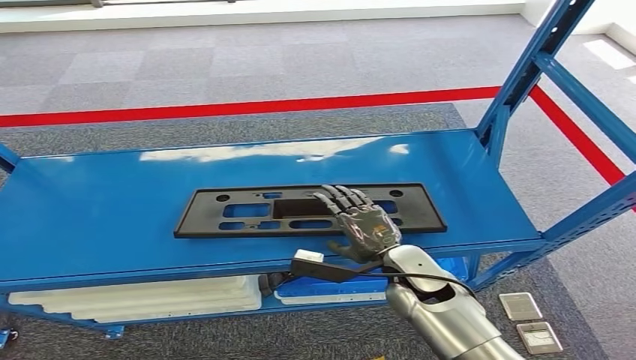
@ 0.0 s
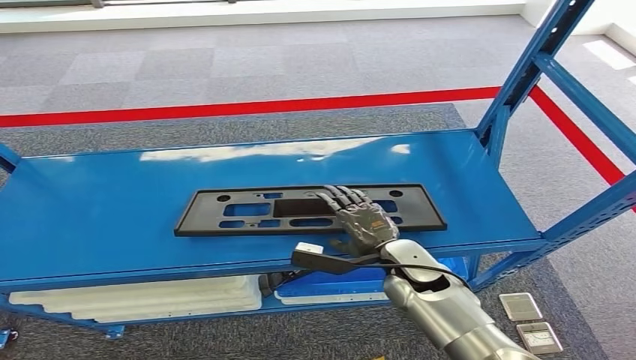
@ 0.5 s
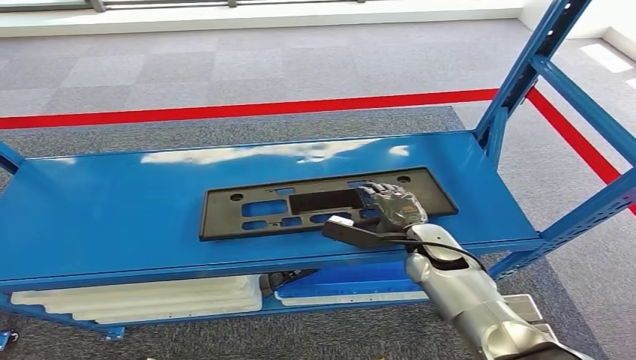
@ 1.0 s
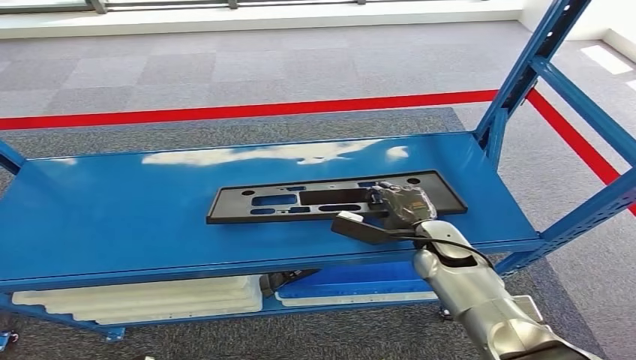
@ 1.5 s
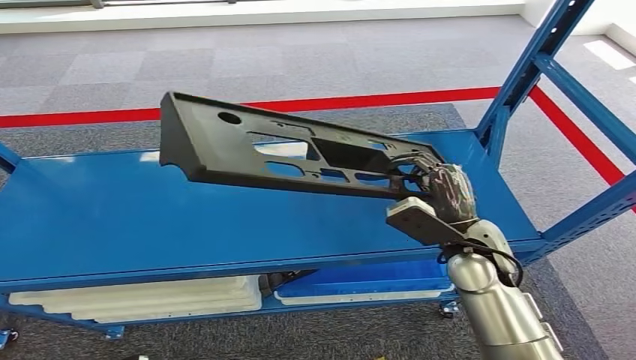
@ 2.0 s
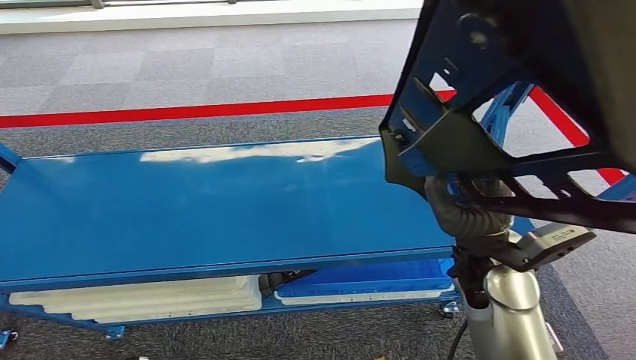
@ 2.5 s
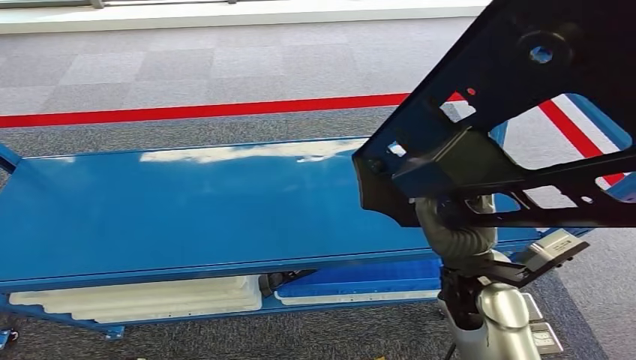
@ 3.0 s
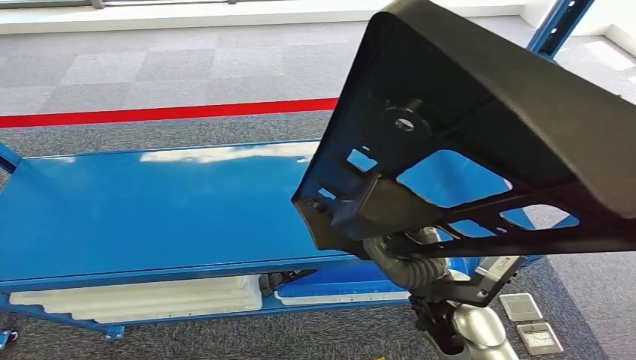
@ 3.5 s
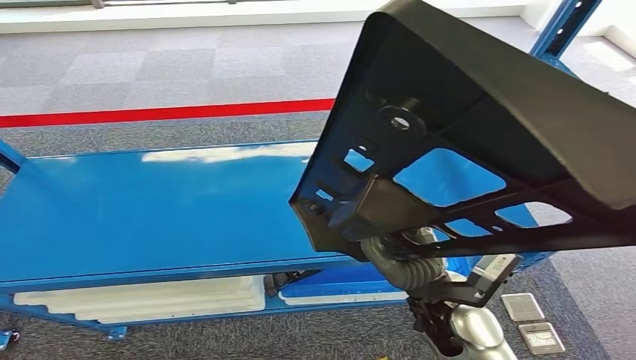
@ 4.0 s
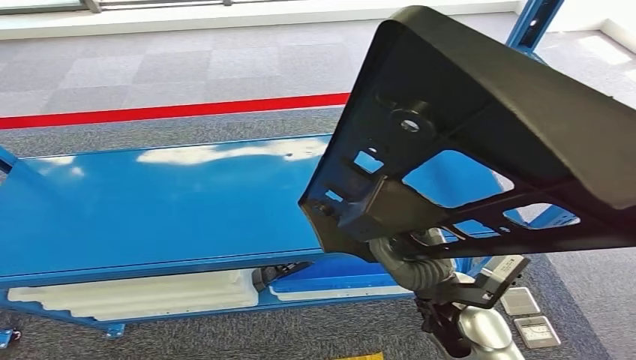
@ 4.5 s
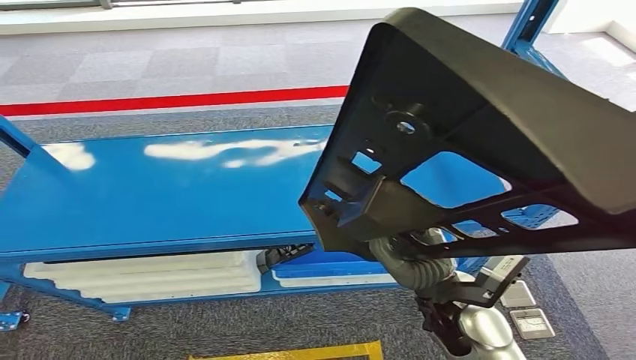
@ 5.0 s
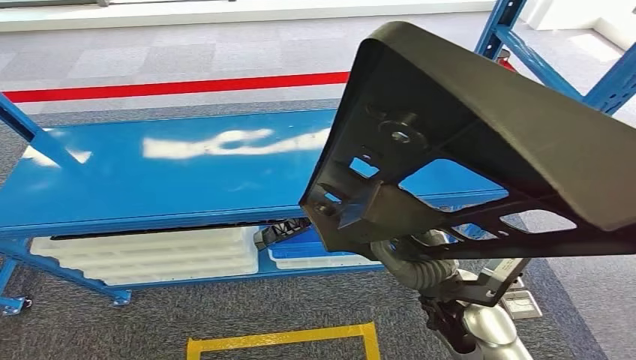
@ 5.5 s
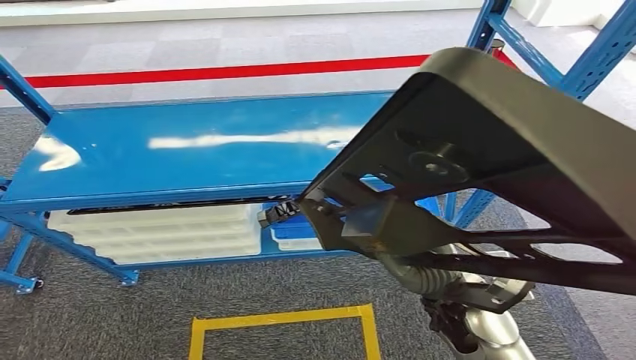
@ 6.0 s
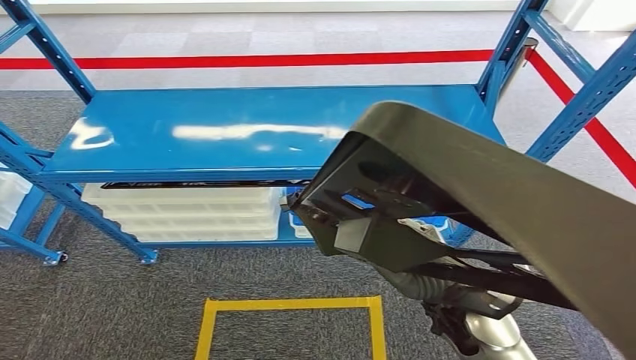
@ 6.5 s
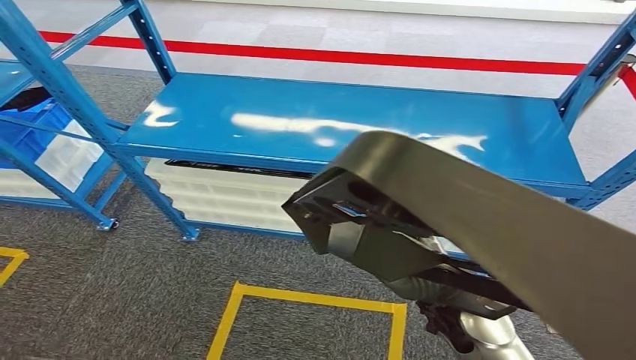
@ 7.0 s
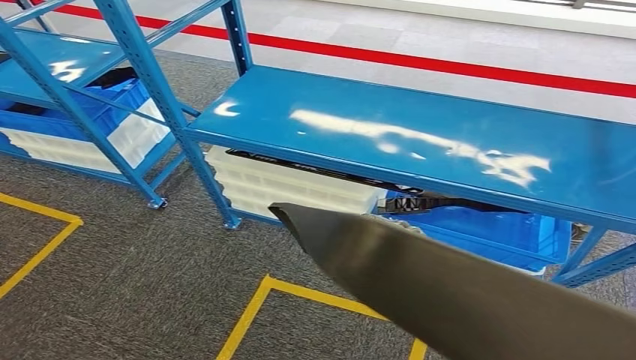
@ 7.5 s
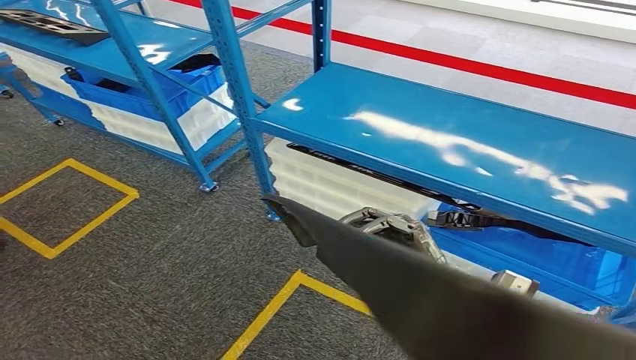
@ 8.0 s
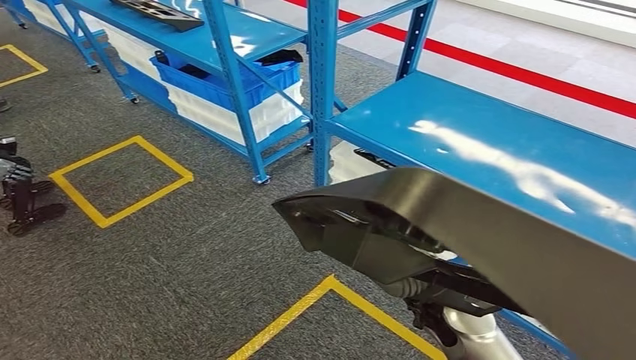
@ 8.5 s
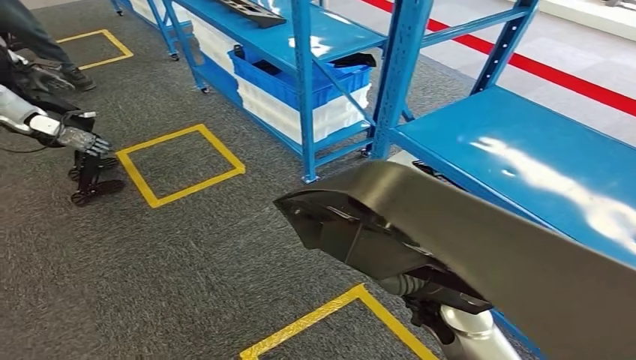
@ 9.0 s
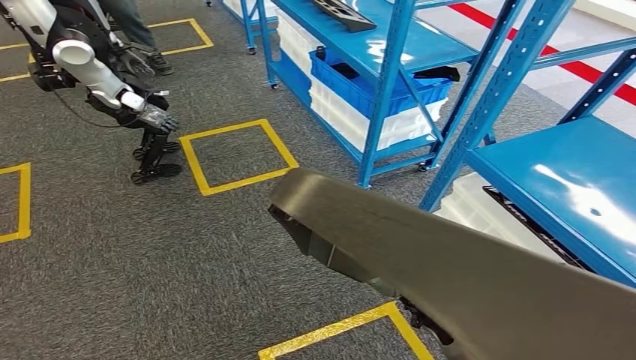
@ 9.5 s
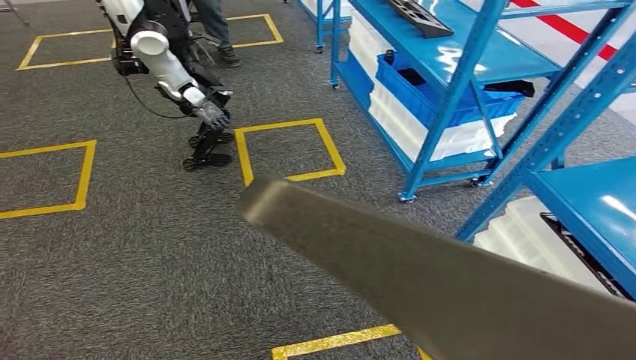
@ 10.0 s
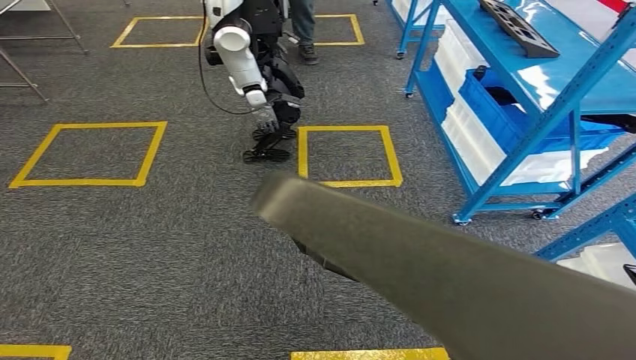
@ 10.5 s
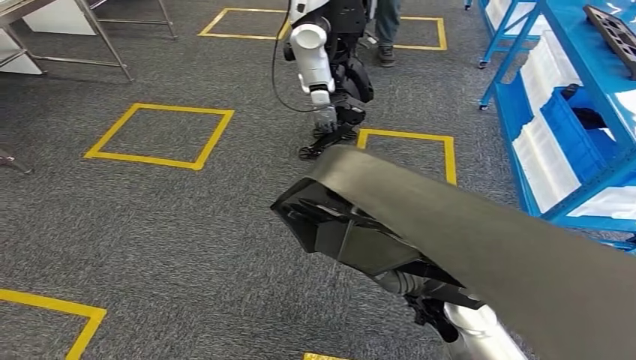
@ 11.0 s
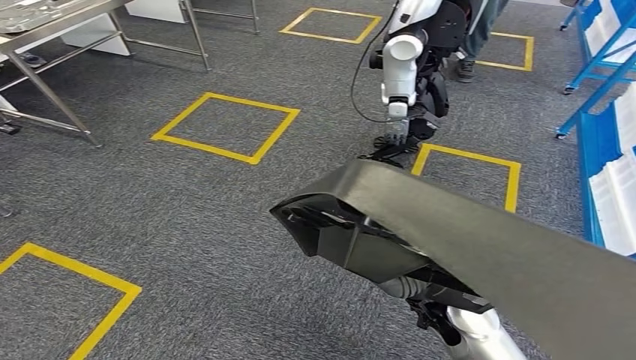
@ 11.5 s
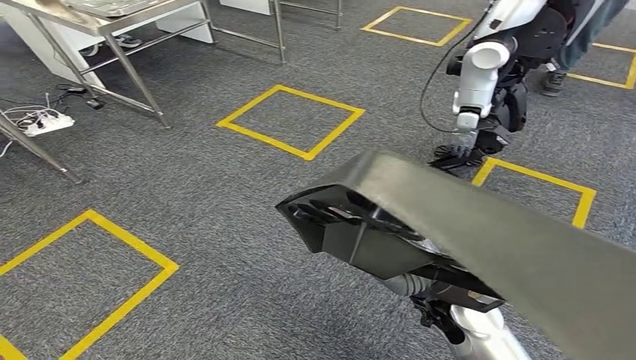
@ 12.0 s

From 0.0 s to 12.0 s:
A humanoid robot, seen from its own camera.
Step, from 0.0 s to 2.5 s: Take small components from the rack.
From 0.0 s to 2.0 s: The right hand heads upward and to the right, covering about 10 cm.

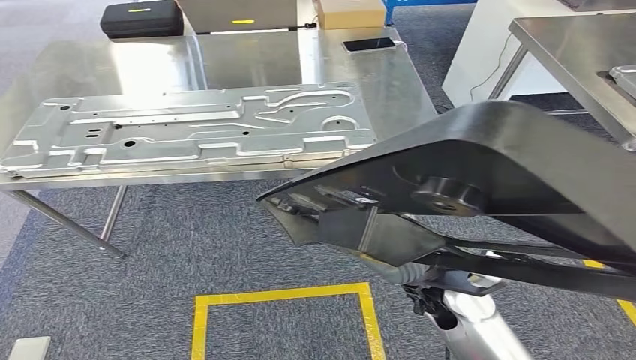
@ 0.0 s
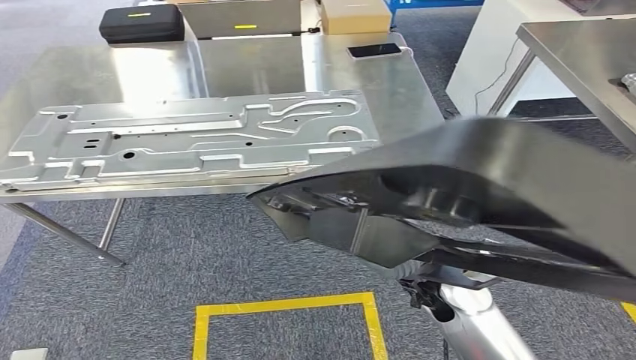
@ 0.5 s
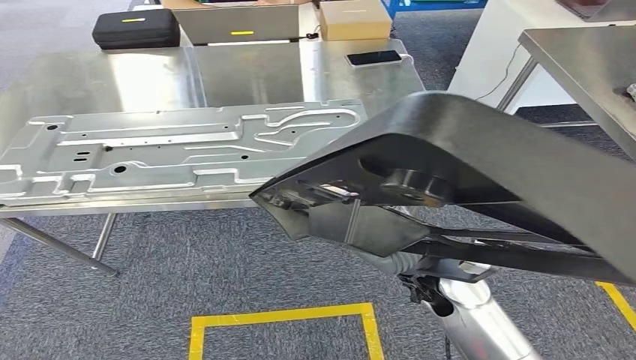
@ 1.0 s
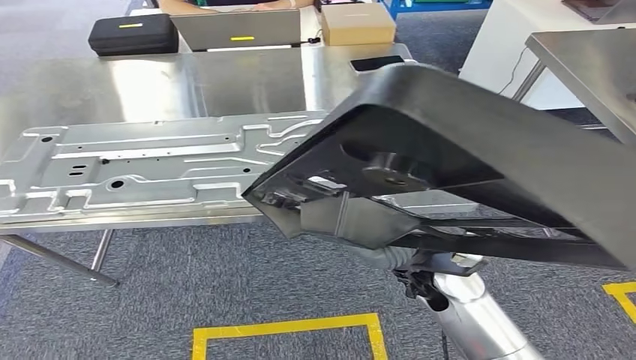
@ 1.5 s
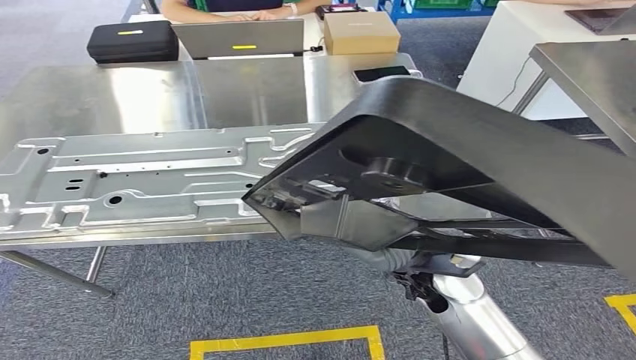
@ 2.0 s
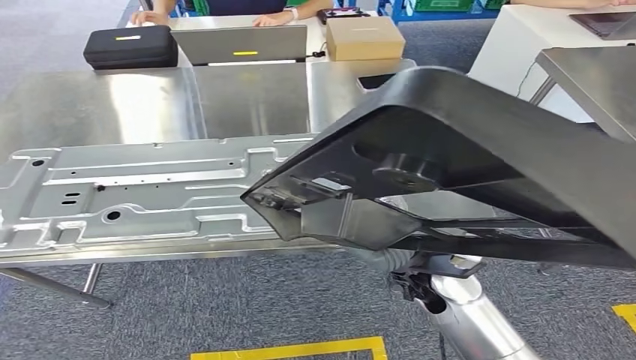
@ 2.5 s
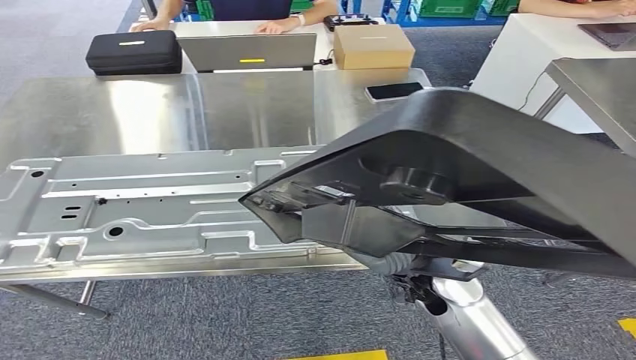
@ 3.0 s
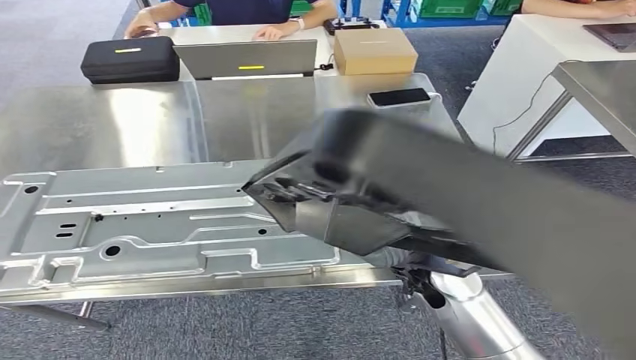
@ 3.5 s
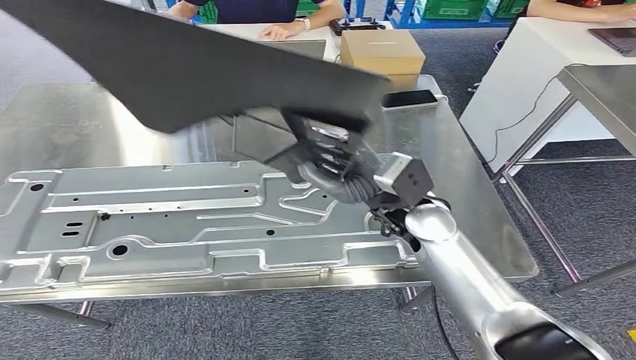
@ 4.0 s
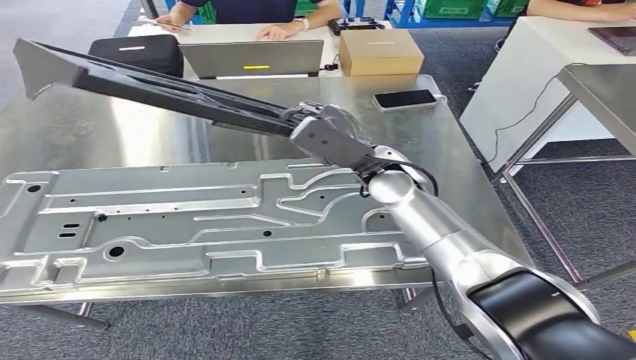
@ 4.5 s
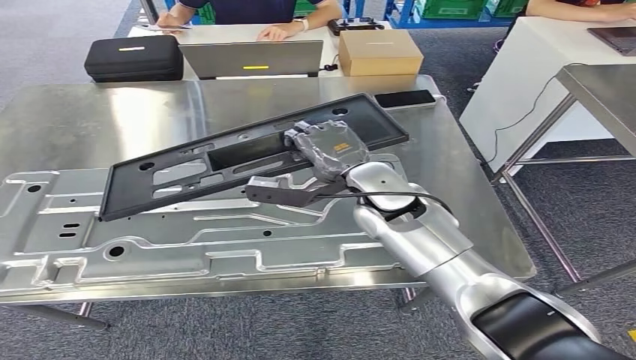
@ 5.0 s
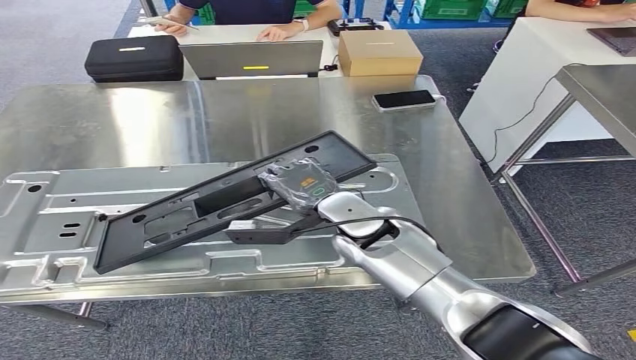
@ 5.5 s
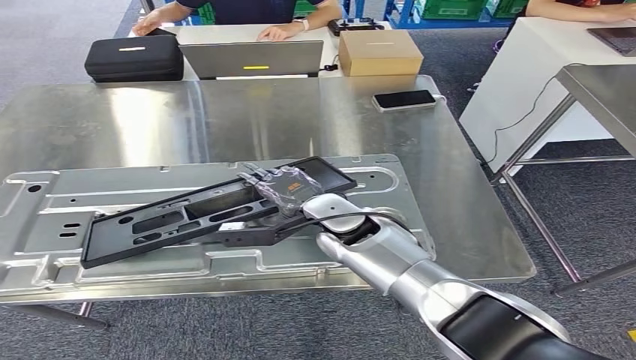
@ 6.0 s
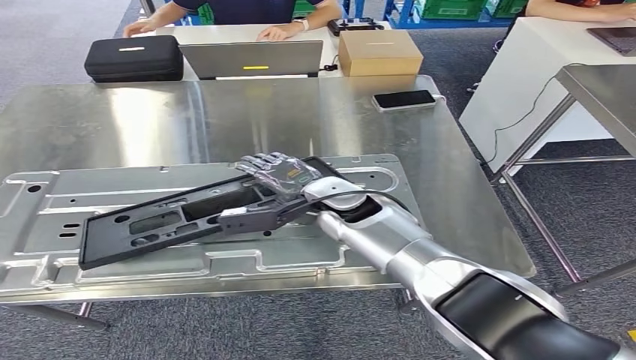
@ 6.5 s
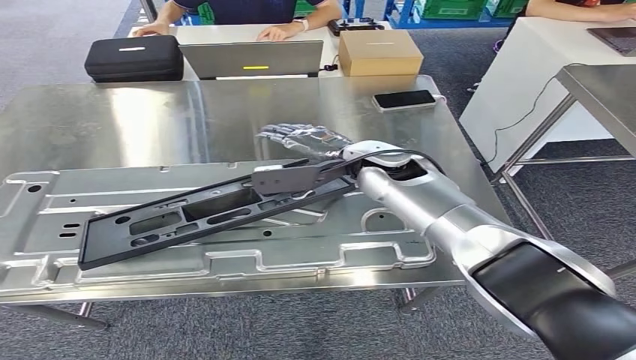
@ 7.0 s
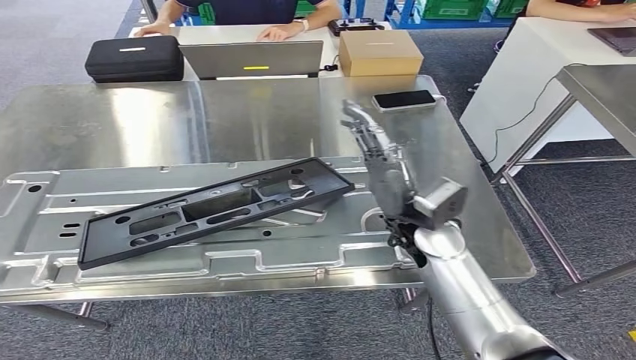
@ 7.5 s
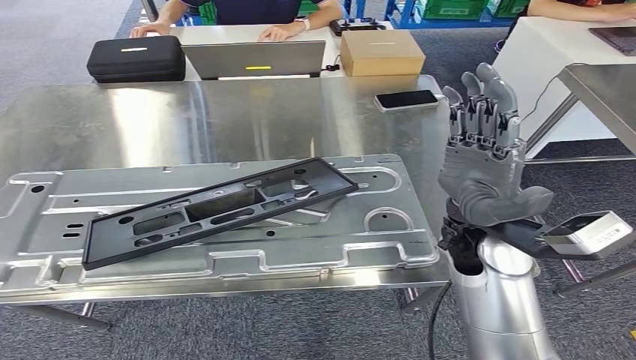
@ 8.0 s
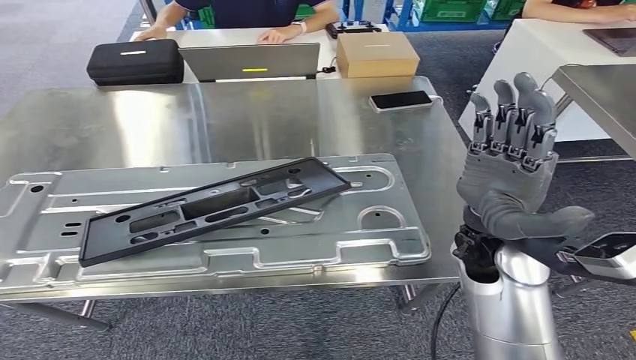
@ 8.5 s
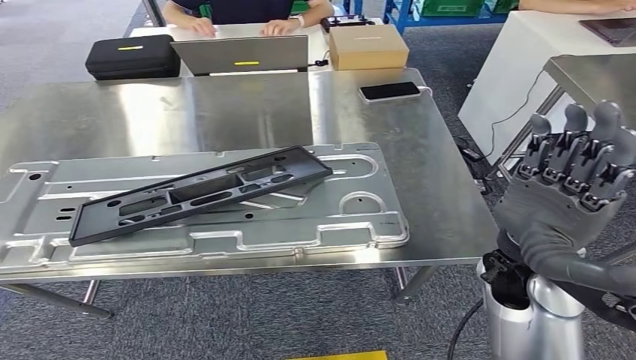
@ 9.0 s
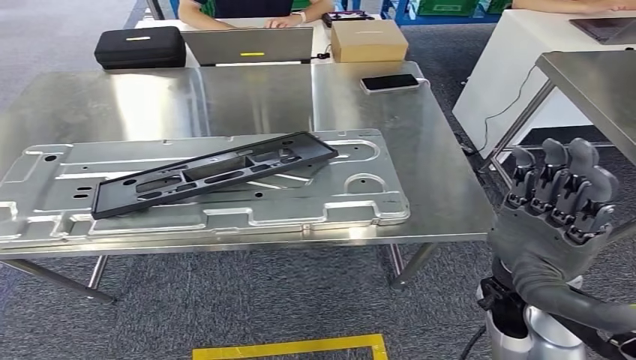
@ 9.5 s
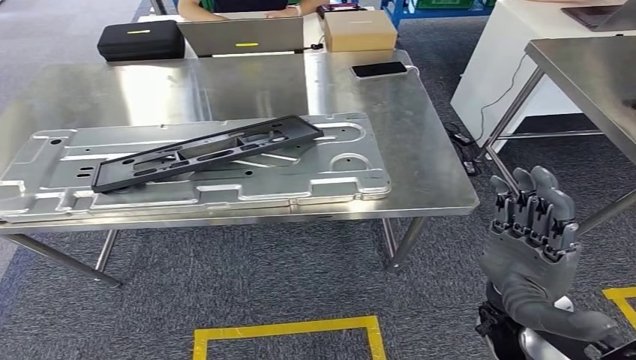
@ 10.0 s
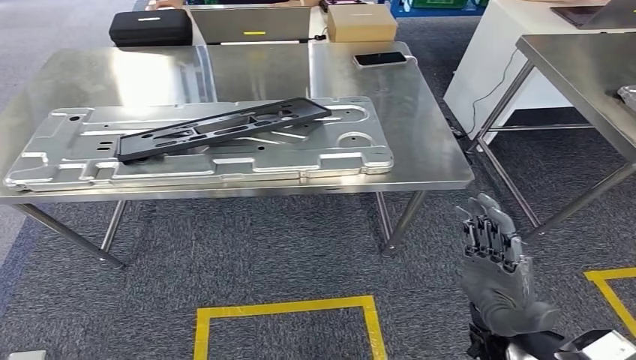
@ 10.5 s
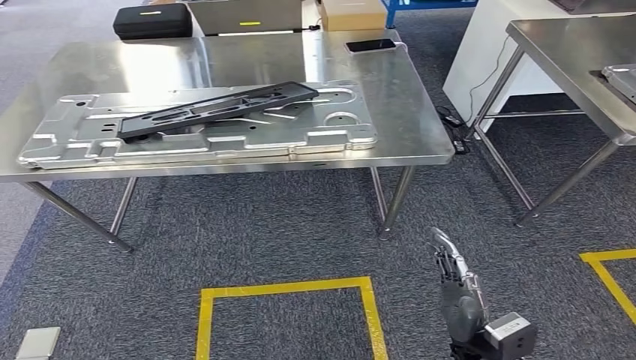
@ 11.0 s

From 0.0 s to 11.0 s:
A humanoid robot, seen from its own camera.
Step, from 0.0 s to 3.5 s: Move the small parts to the workbench.
Step, from 4.0 s to 8.0 s: Insert the small parts into the corresponding holes on the workbench.
From 5.5 s to 7.5 s: The right hand goes roughly 10 cm to the right, and goes forward and returns, roughly 10 cm each way.
